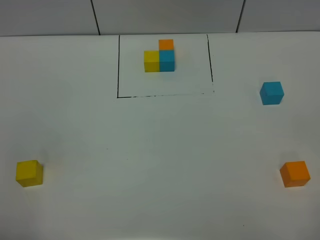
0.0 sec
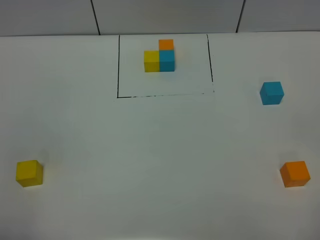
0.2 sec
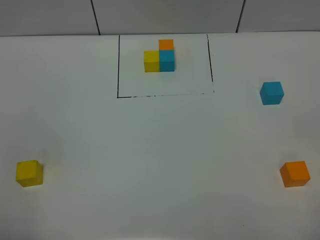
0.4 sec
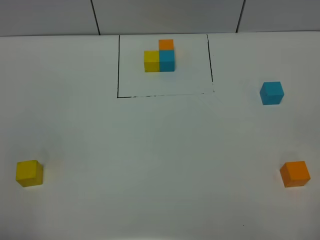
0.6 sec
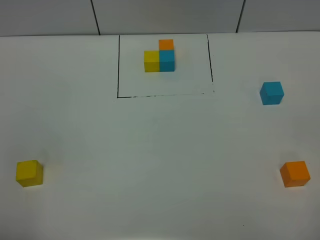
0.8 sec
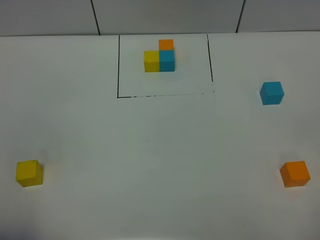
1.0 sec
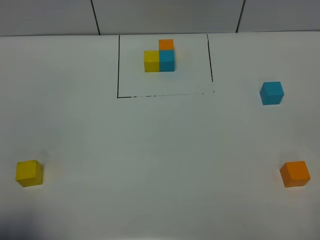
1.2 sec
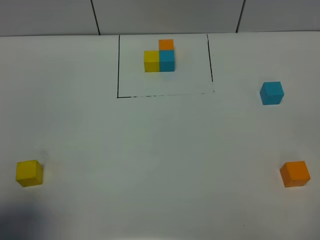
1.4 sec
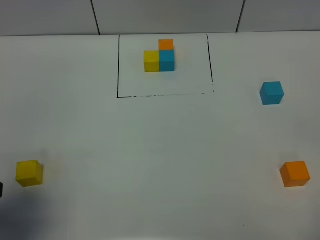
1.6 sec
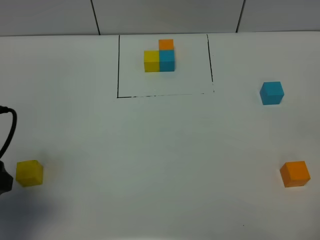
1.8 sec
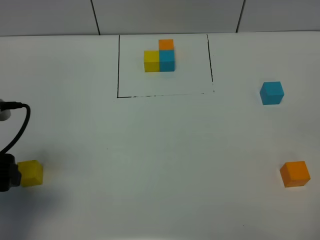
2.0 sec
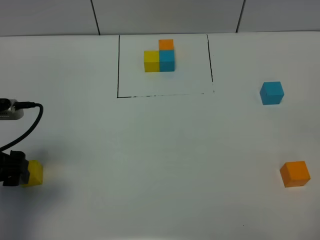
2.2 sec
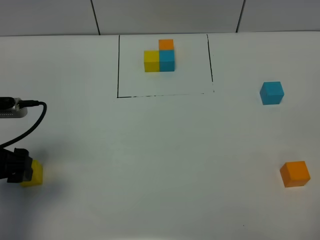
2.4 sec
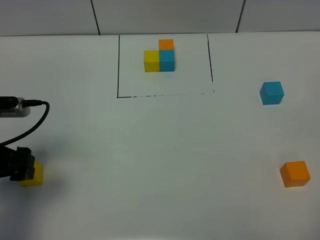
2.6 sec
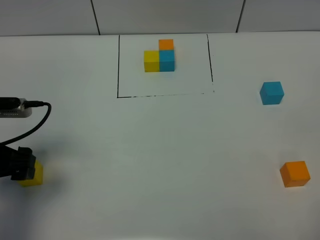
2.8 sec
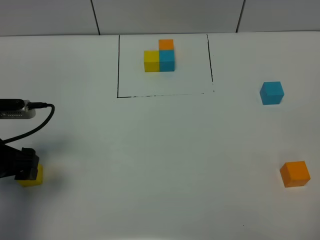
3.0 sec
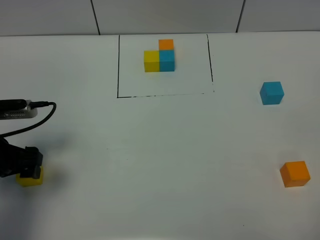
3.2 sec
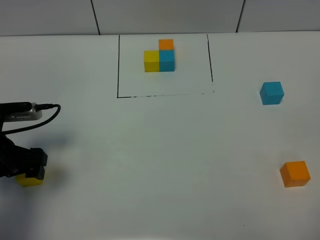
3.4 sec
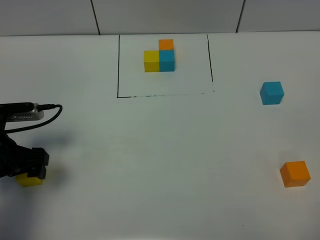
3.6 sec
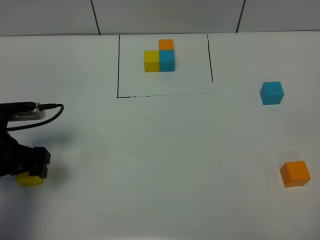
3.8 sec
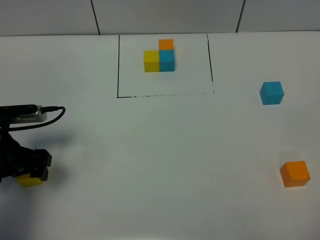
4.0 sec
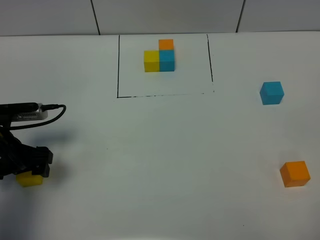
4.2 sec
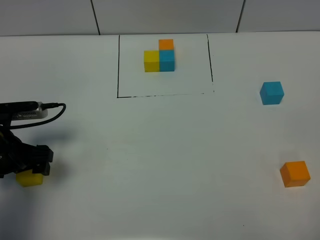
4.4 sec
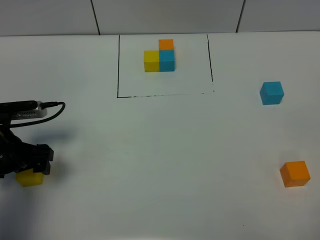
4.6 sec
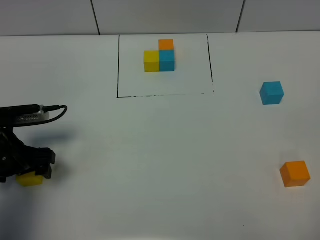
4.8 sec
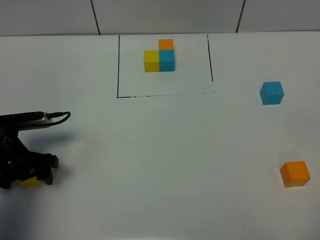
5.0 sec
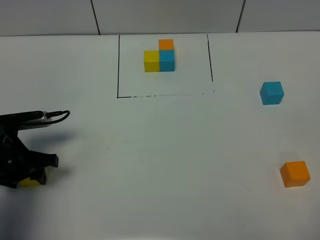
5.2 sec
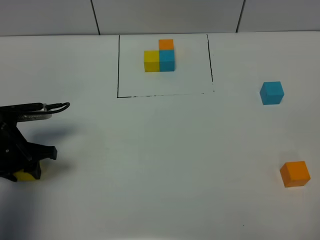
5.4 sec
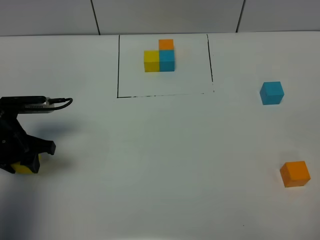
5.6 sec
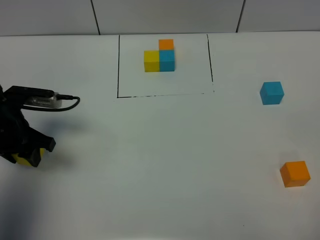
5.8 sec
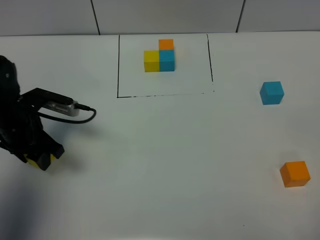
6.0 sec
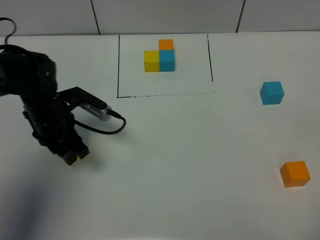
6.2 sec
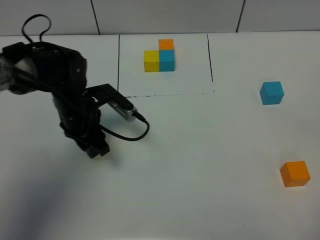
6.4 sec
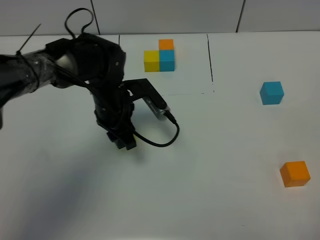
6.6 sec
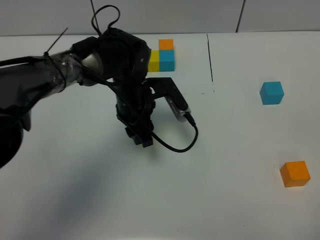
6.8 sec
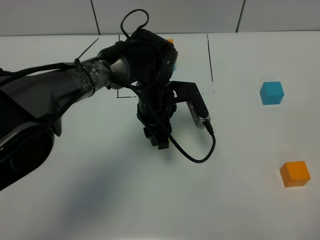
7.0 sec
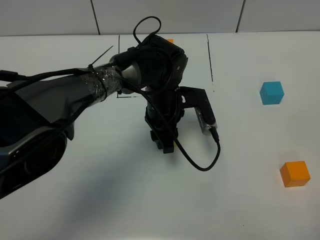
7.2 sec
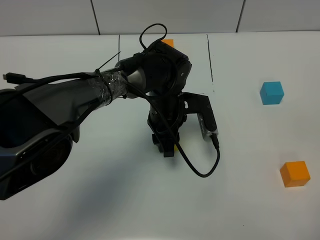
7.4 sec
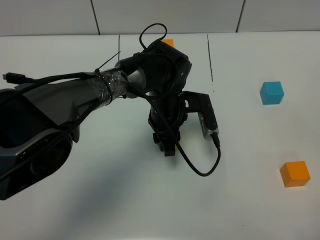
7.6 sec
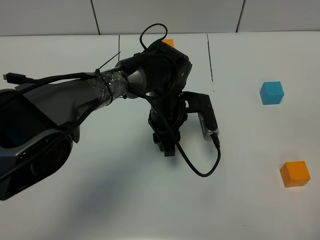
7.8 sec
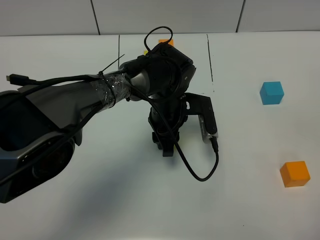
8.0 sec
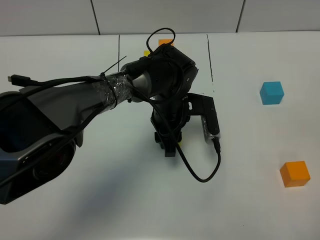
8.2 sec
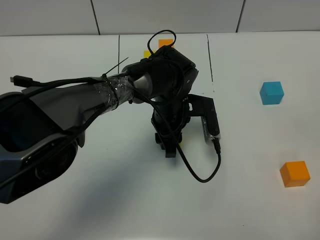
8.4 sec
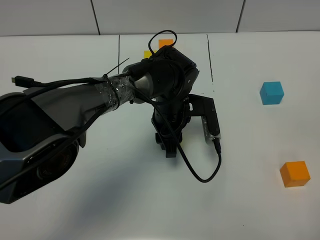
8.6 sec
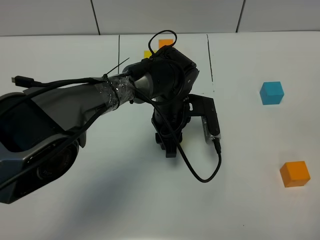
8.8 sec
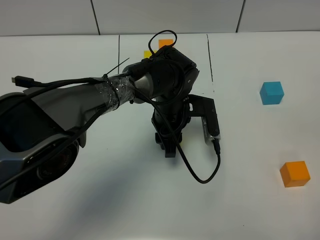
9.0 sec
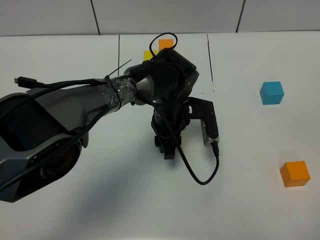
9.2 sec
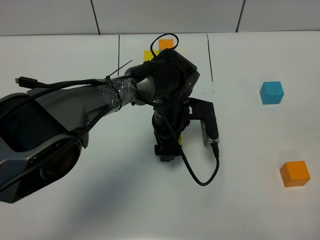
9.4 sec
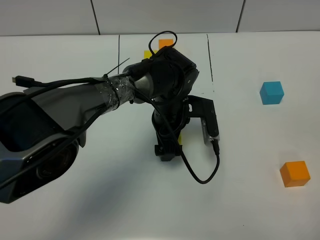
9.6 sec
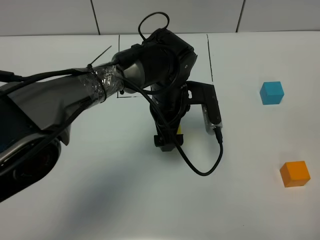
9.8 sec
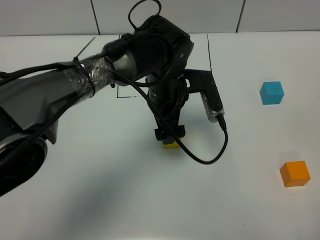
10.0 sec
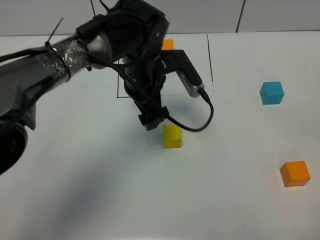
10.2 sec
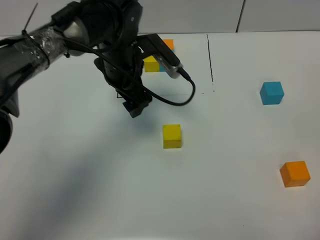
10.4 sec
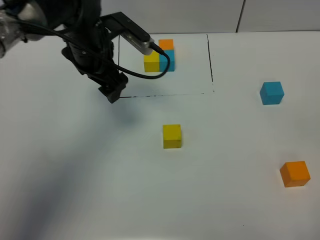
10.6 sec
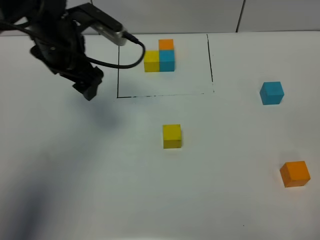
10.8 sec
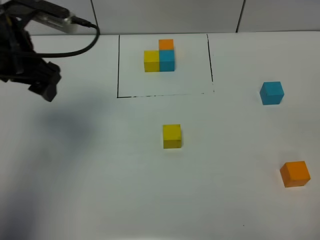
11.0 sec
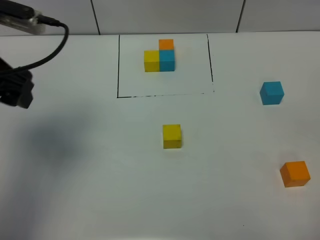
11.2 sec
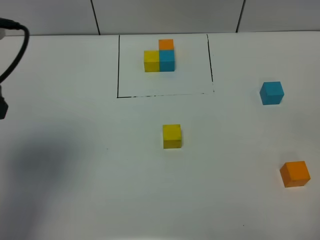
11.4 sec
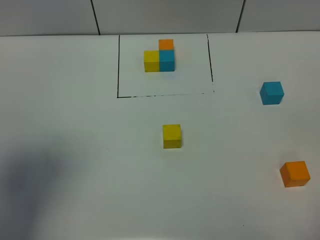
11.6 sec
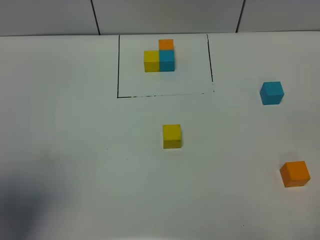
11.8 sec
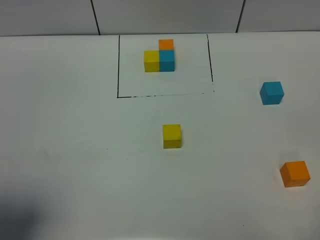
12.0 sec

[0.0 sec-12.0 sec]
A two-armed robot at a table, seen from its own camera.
Task of the whole recording: According to the building block template in front, assemble the scattered blocks together.
Step, 0.0 sec to 9.2 sec: Put the yellow build block in the center of the table.
0.0 sec to 1.6 sec: The left gripper heads forward, covering about 10 cm.
1.6 sec to 3.0 sec: The left gripper moves forward and downward, roughly 15 cm.
3.0 sec to 4.4 sec: The left gripper ends up about 5 cm from where it was.
4.4 sec to 6.0 sec: The left gripper is displaced forward by some 5 cm, and closes its fingers.
6.0 sec to 7.6 sec: The left gripper shifts roughly 25 cm to the right.
7.6 sec to 9.0 sec: The grippers move only a little.
9.0 sec to 10.4 sec: The left gripper heads upward and to the left, covering some 15 cm, and opens.
10.4 sec to 12.0 sec: The left gripper travels backward, to the left and upward by roughly 40 cm.

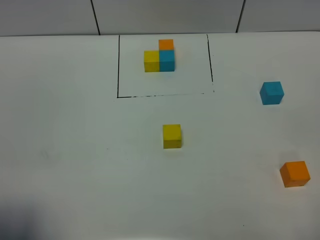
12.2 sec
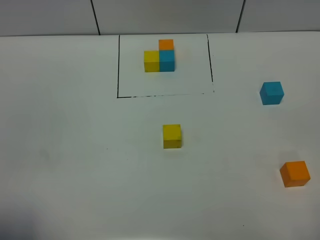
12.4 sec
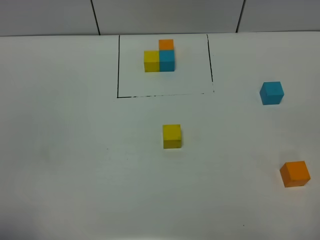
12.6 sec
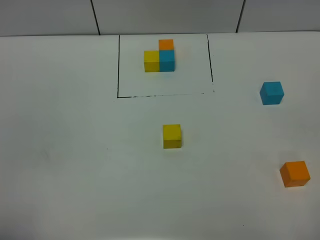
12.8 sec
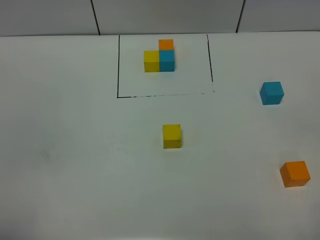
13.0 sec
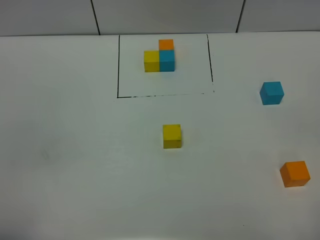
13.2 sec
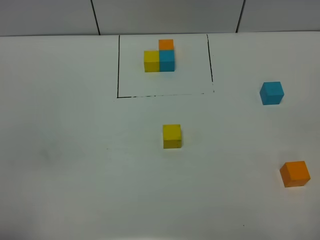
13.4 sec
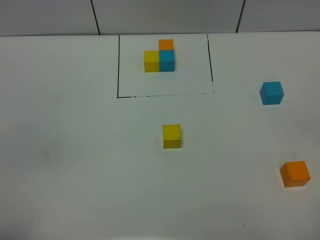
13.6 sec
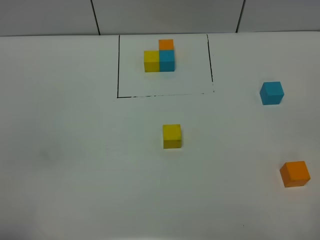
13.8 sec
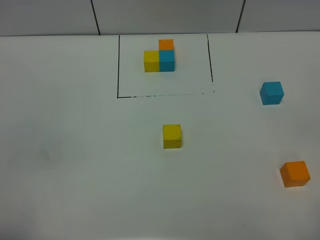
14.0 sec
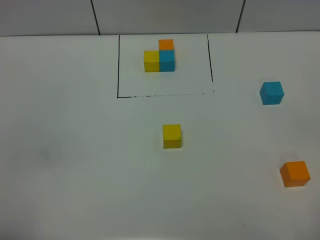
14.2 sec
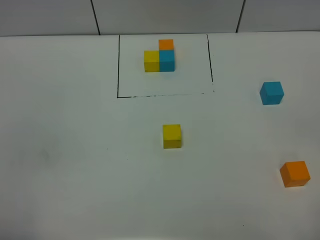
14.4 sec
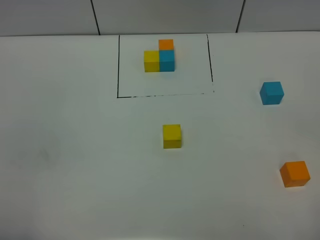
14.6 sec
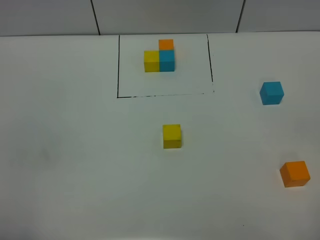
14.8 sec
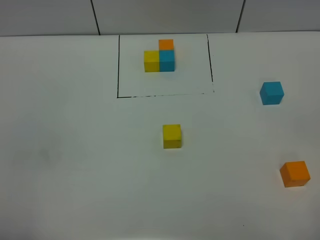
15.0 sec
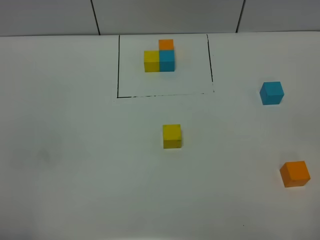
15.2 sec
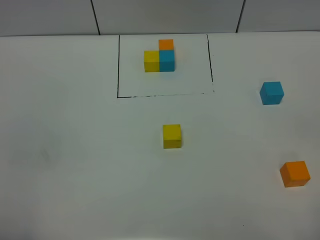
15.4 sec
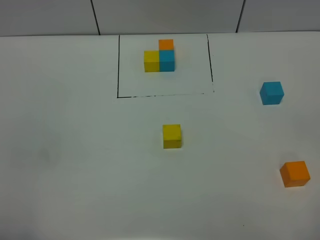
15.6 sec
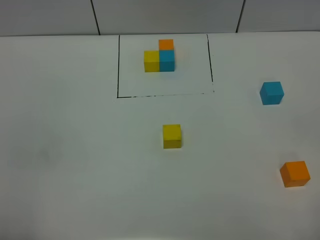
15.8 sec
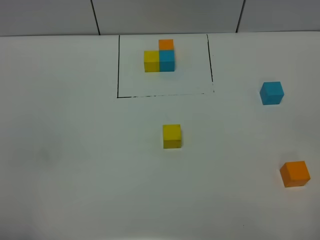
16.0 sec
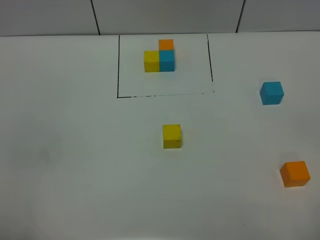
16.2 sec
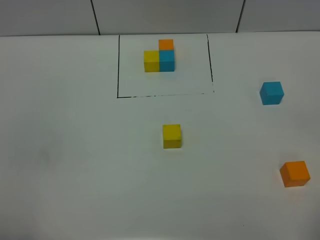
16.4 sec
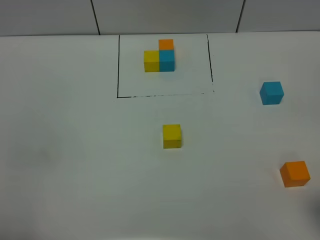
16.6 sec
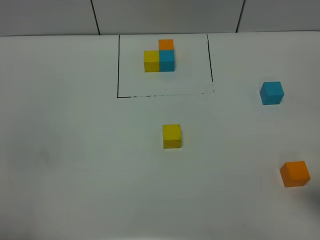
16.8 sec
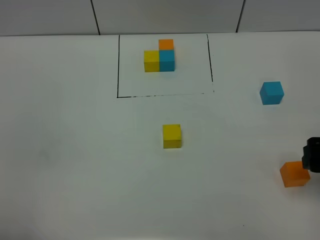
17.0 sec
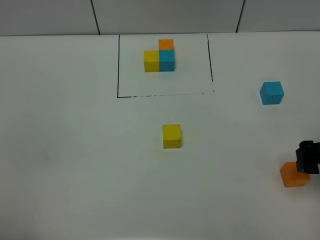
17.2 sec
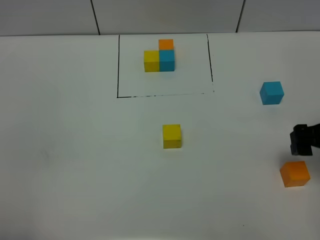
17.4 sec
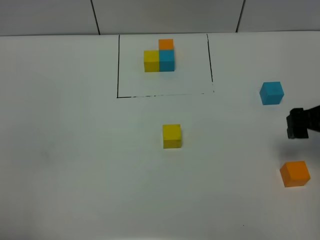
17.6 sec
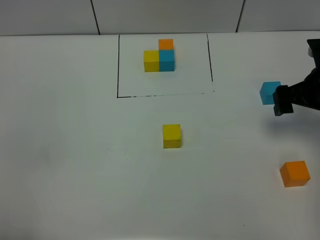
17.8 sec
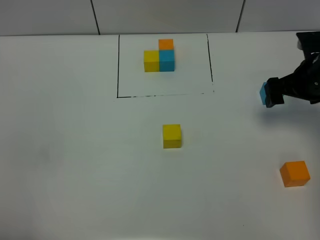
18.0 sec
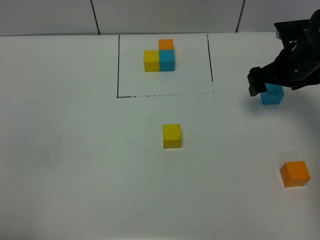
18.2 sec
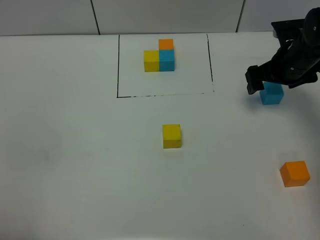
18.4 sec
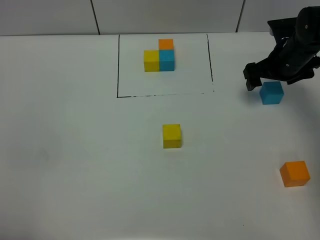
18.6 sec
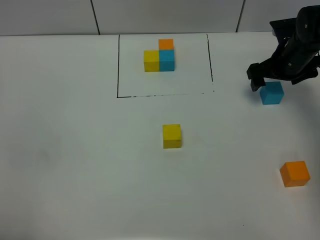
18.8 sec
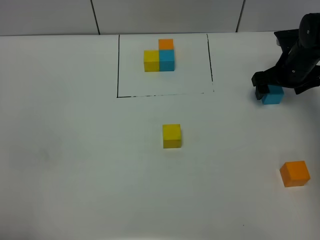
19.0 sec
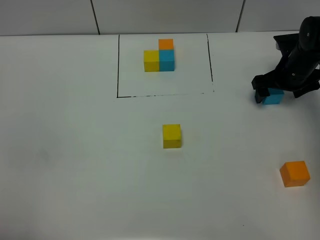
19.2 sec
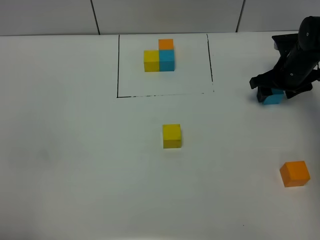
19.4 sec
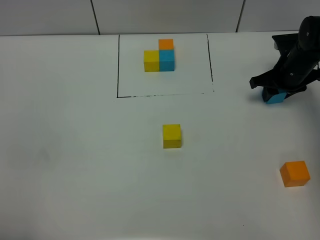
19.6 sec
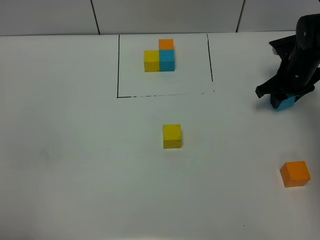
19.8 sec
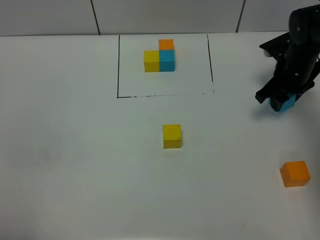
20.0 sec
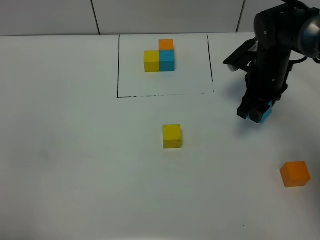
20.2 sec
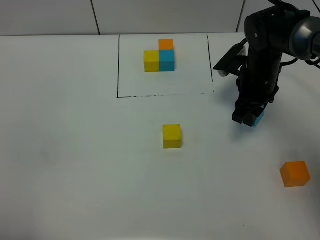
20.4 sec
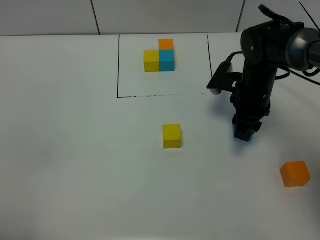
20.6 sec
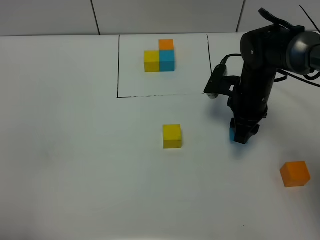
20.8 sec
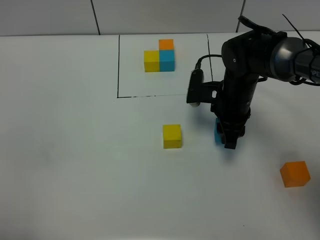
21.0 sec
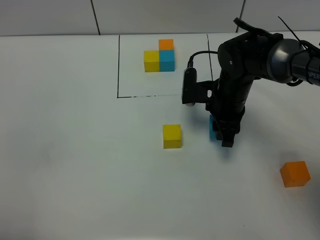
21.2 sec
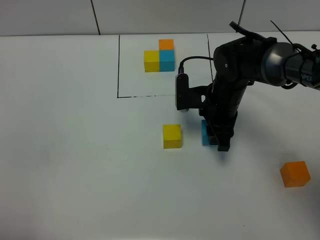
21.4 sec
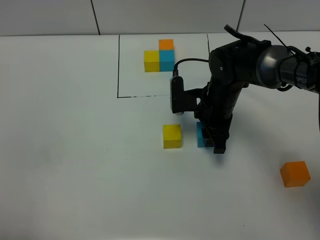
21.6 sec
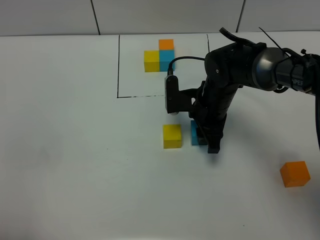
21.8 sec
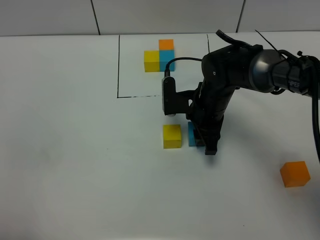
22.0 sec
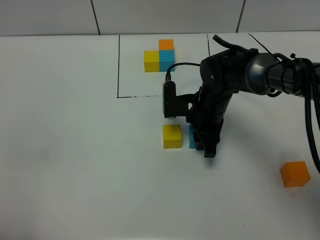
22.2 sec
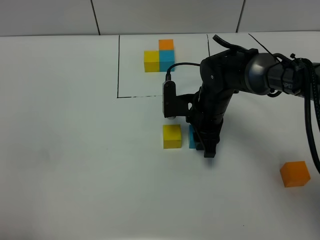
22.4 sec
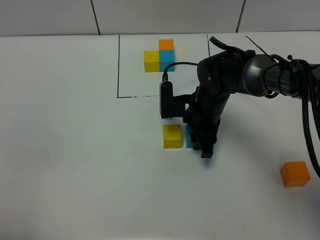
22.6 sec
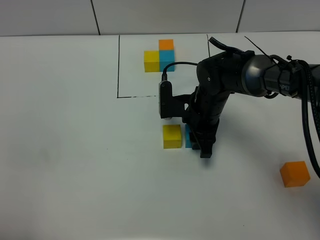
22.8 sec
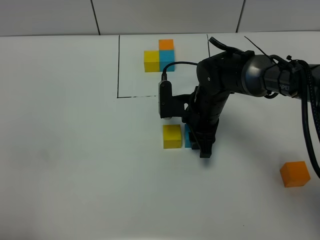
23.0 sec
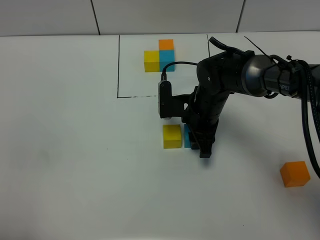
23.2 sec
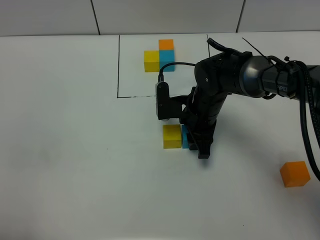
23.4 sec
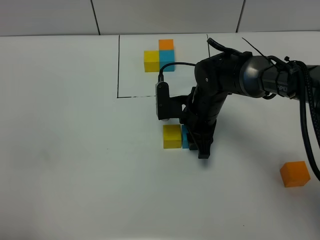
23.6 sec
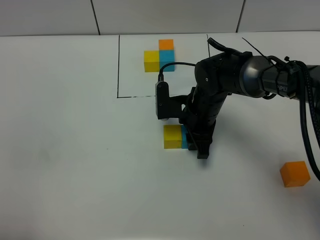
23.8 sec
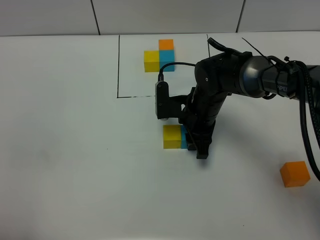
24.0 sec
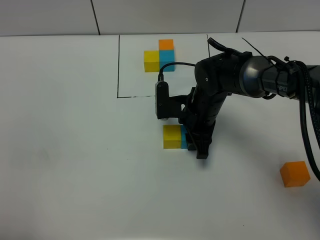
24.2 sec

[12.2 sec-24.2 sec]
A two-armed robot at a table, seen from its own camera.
Task of the whole recording: According to the building block template in front, assemble the scattered blocks together.
12.2 sec to 13.8 sec: The left gripper shifts by some 5 cm.
16.6 sec to 18.2 sec: The right gripper travels forward by about 30 cm.
18.2 sec to 19.8 sec: The right gripper moves approximately 5 cm, and closes up.
19.8 sec to 21.2 sec: The right gripper moves to the left, roughly 15 cm.
21.2 sec to 22.6 sec: The right gripper changes place by about 5 cm.
22.6 sec to 24.2 sec: Both grippers stay about where they are.
